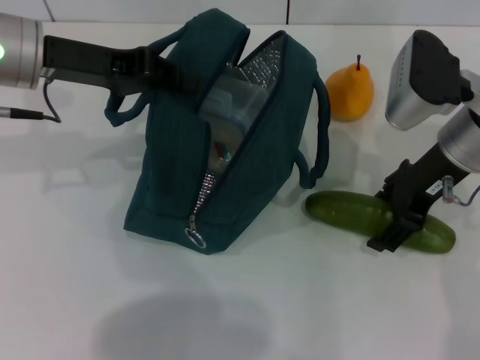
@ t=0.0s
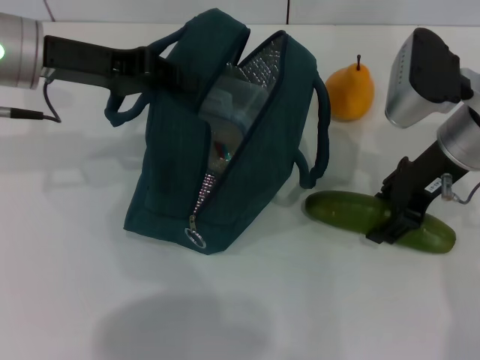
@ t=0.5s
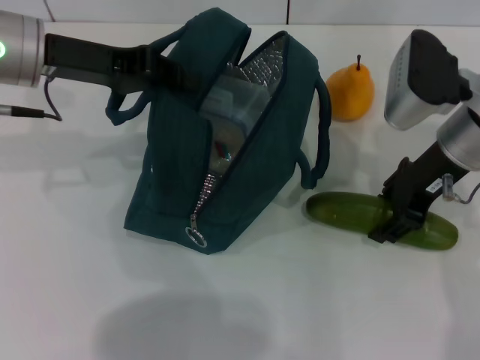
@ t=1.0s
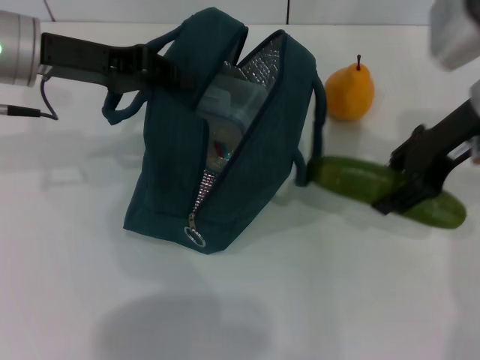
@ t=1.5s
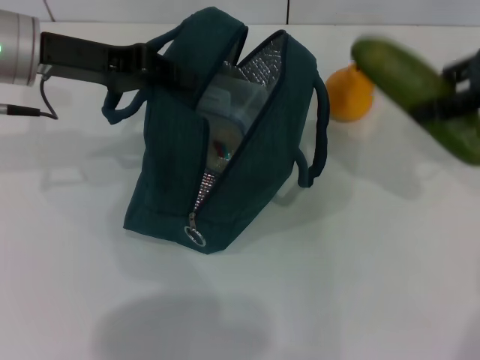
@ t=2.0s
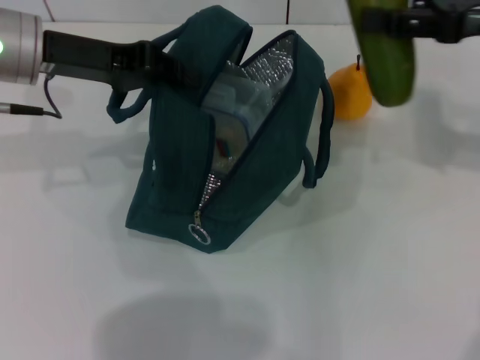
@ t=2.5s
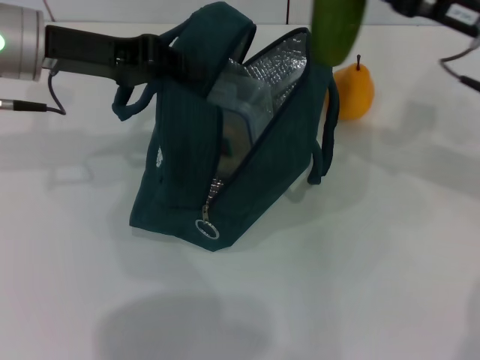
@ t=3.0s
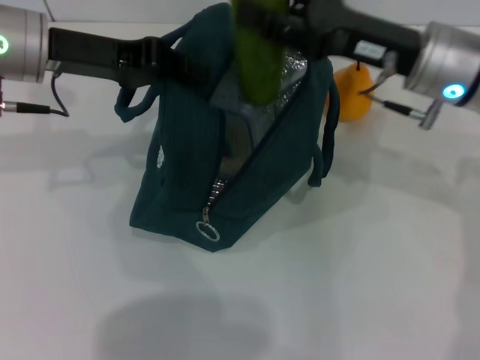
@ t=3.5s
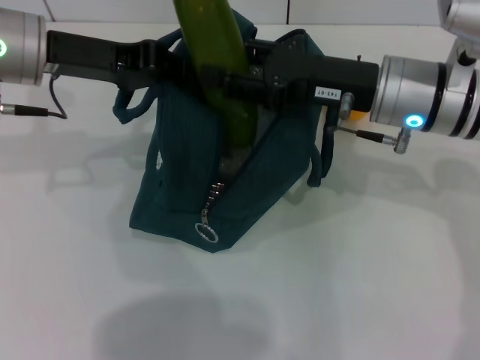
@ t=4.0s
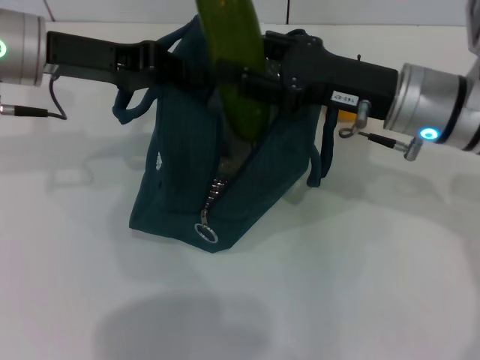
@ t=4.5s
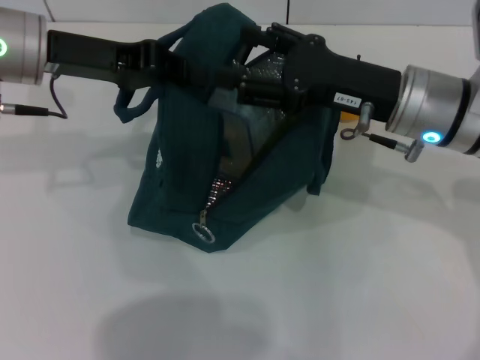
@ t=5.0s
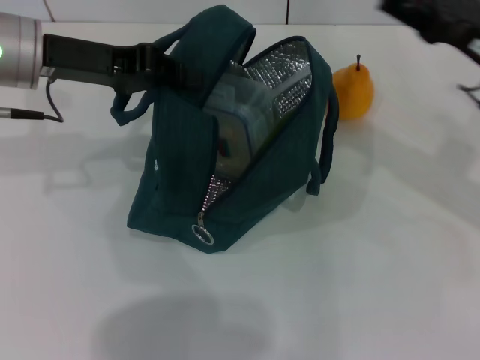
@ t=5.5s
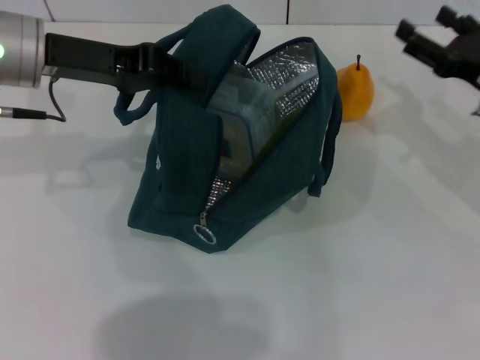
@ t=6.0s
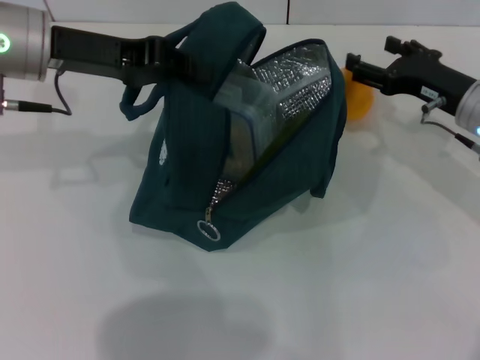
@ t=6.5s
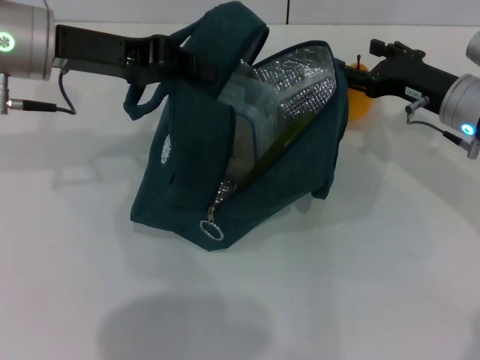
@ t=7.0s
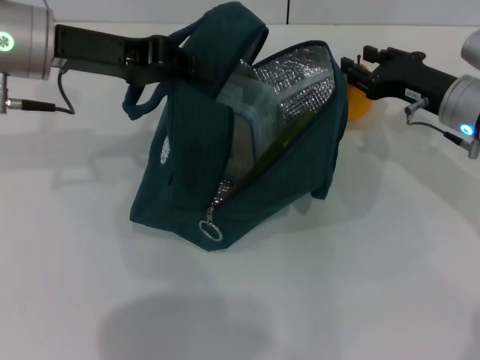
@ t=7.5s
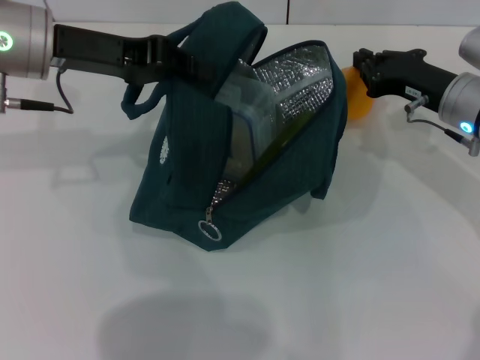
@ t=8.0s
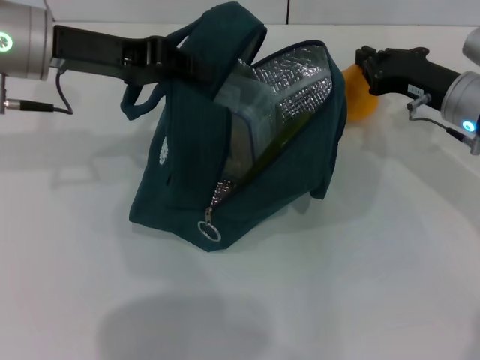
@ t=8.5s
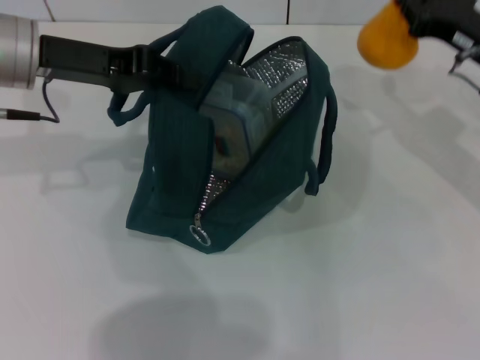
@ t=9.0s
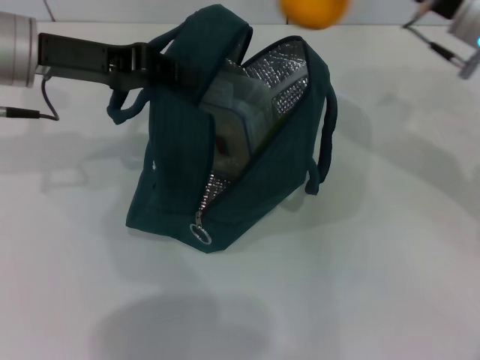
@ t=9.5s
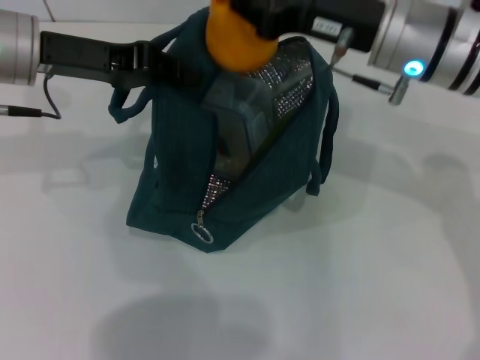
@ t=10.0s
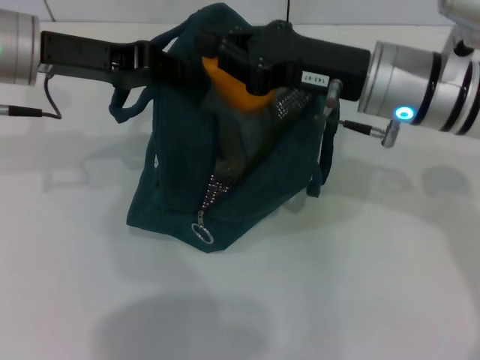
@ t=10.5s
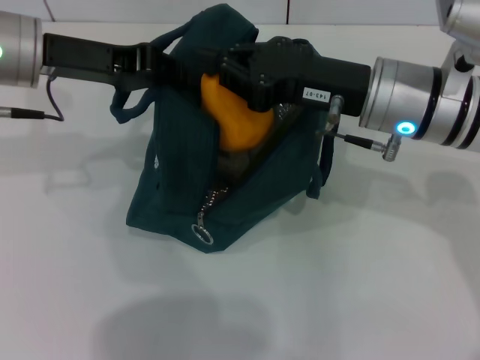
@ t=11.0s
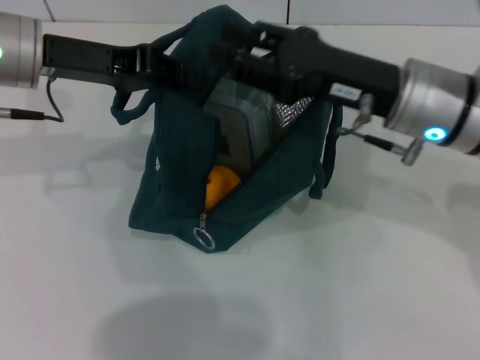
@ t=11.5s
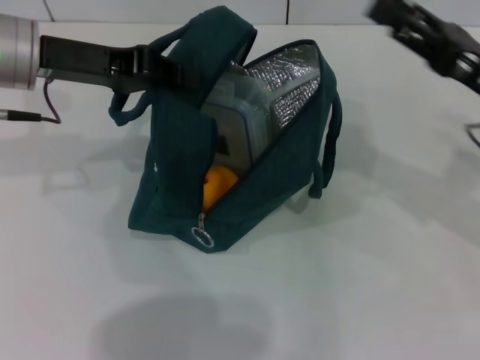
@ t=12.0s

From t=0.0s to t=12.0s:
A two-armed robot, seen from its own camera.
Step, from t=1.0s to t=5.0s: Put the cucumber into the lunch bag with your right hand.
Step, from t=6.0s to t=8.0s: Grab the pear with your right hand.
From t=0.0s to t=2.0s: The right gripper goes approximately 15 cm upward and to the right.
From t=2.0s to t=4.0s: The right gripper is displaced to the left and downward by roughly 20 cm.
From t=4.0s to t=6.0s: The right gripper travels to the right by about 15 cm, and opens its fingers.
From t=6.0s to t=8.0s: The right gripper goes some 5 cm to the left, and closes up.
From t=8.0s to t=10.0s: The right gripper travels upward and to the left by about 15 cm.
From t=10.0s to t=12.0s: The right gripper moves to the right, backward and downward, about 15 cm, and opens.

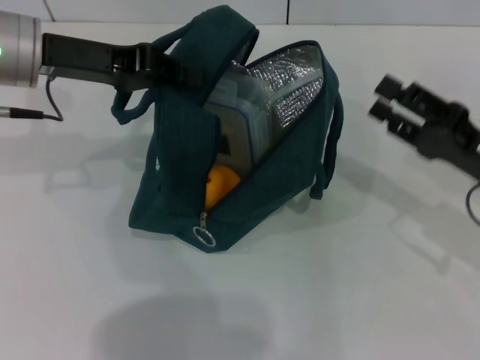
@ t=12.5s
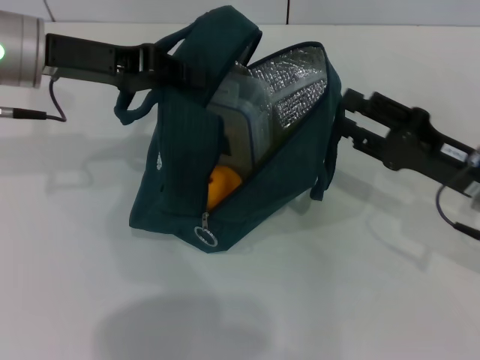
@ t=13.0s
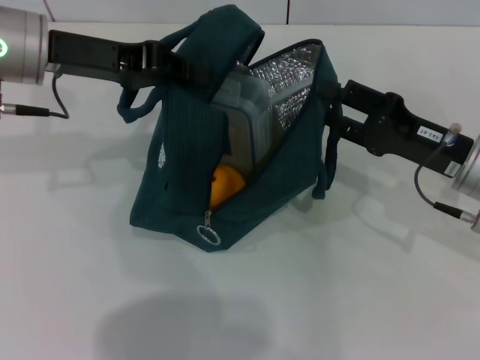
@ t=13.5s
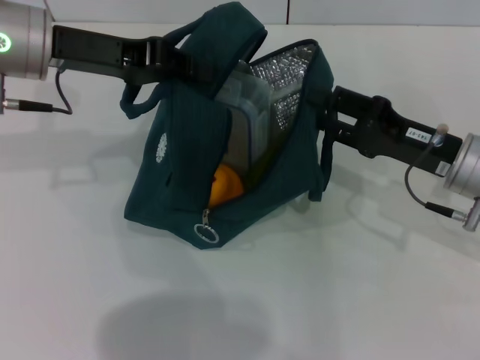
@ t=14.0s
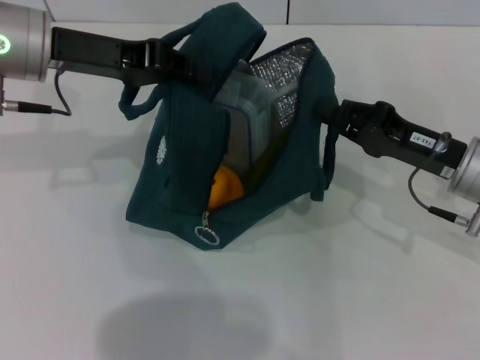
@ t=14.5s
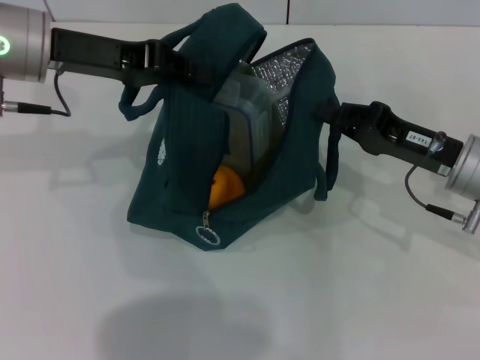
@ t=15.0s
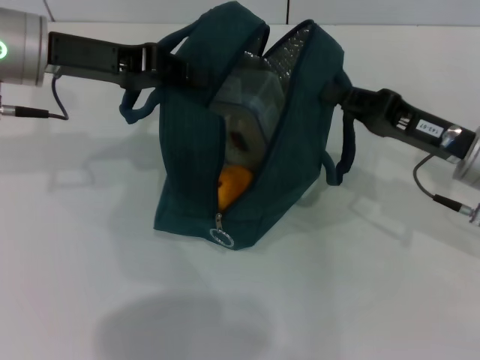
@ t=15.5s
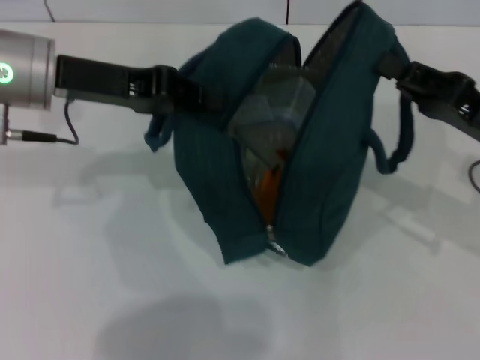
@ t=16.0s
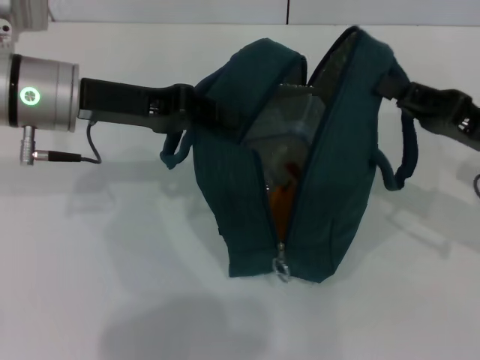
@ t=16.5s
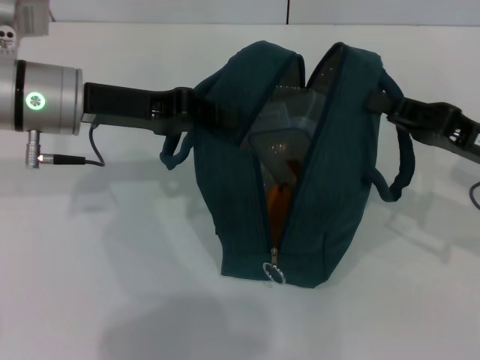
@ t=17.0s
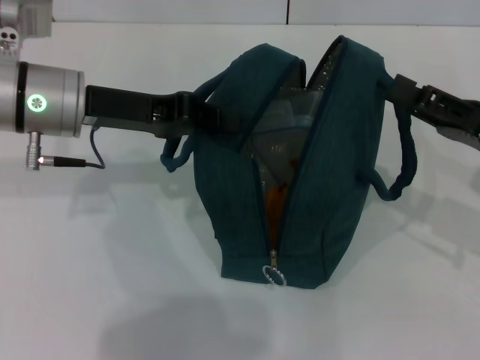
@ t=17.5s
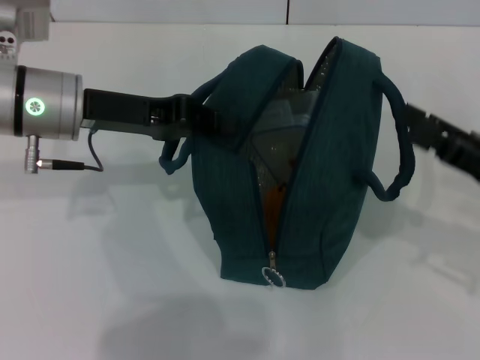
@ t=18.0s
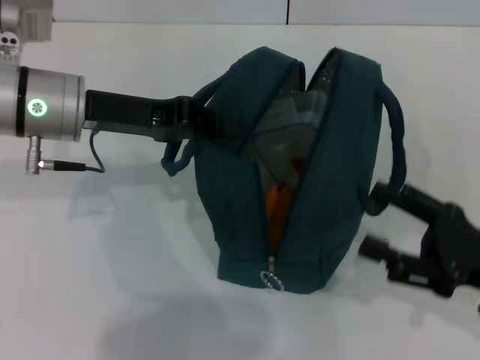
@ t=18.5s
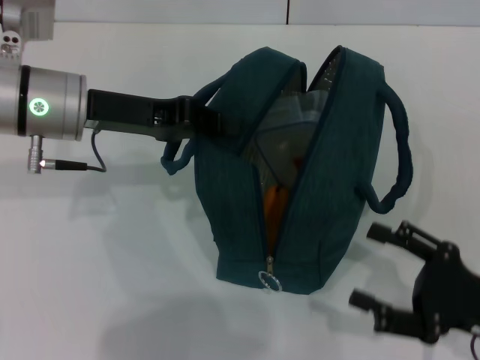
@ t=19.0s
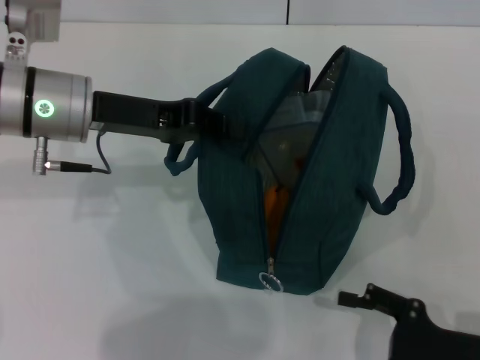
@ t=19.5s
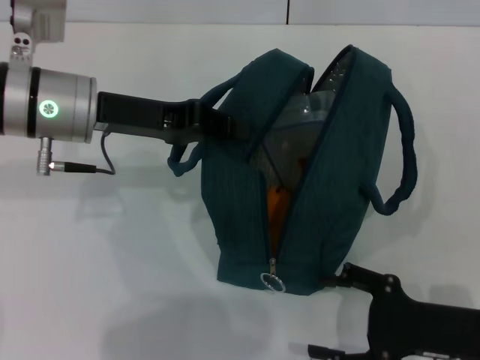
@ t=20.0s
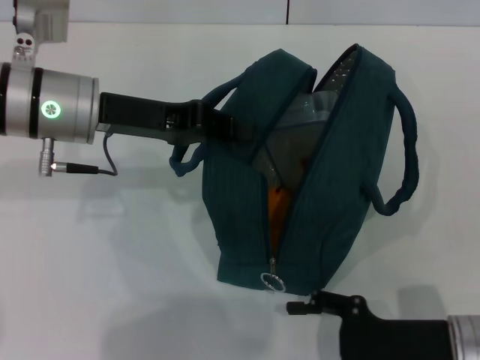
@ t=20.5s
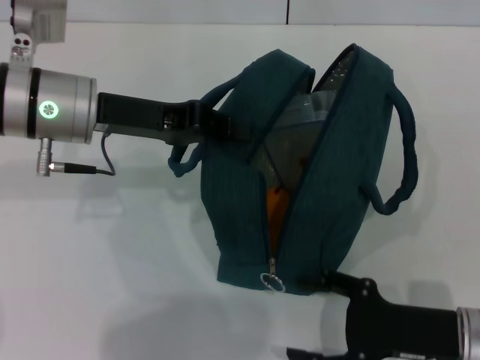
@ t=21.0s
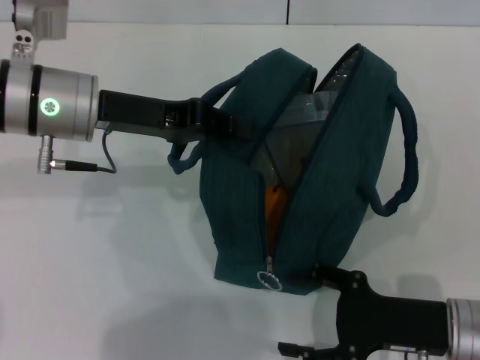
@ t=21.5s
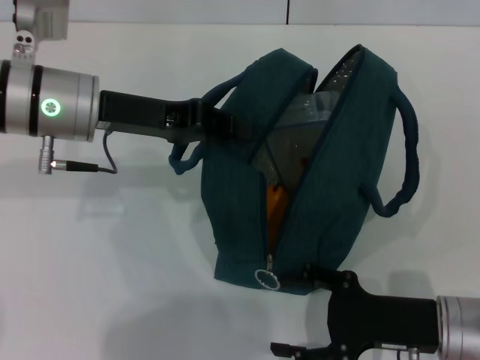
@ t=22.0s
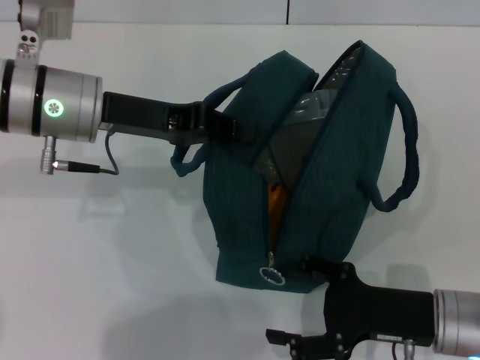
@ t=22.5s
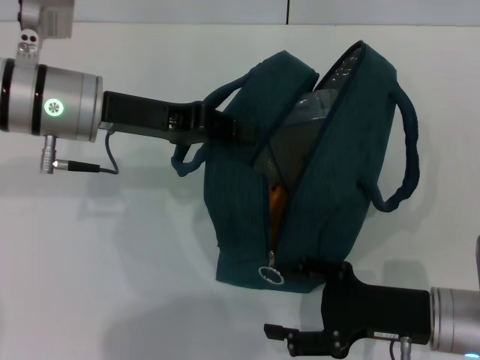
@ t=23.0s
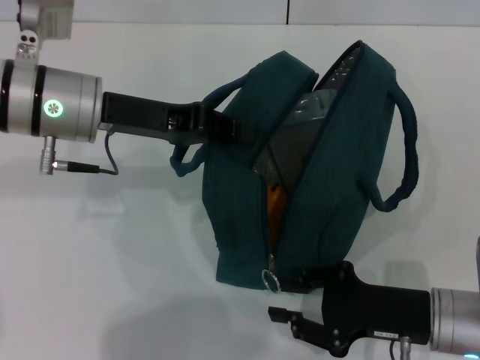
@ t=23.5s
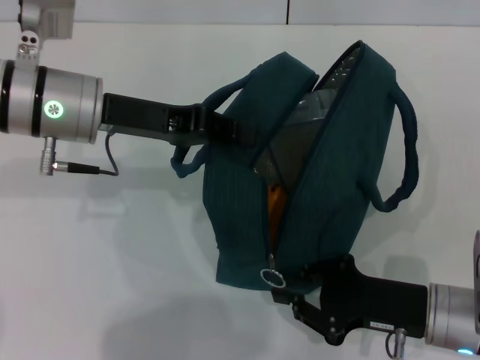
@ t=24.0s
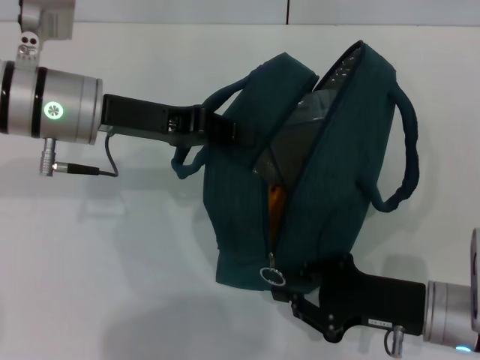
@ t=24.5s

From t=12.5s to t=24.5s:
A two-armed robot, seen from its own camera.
Step, from t=12.5s to t=18.0s: Hold the lunch bag with your right hand.
From t=12.5s to t=14.5s: The right gripper changes place by about 5 cm.
From t=14.5s to t=16.5s: The right gripper shifts by some 5 cm, and closes.
From t=16.5s to t=18.5s: The right gripper travels backward by roughly 10 cm, and opens its fingers.
From t=18.5s to t=20.5s: The right gripper shifts approximately 5 cm to the left.
From t=20.5s to t=22.5s: The grippers stay close to where they were, moving slightly.
From t=22.5s to t=24.5s: The right gripper closes up.

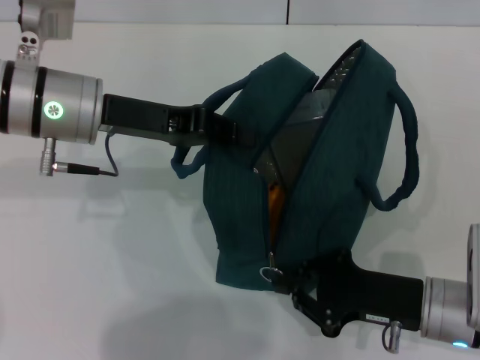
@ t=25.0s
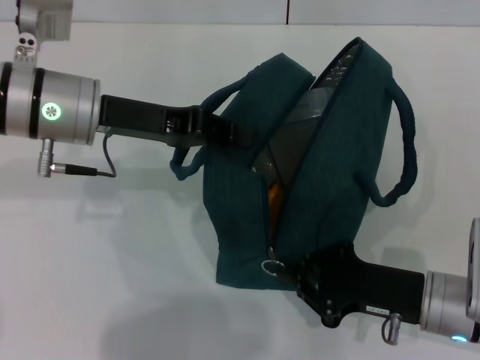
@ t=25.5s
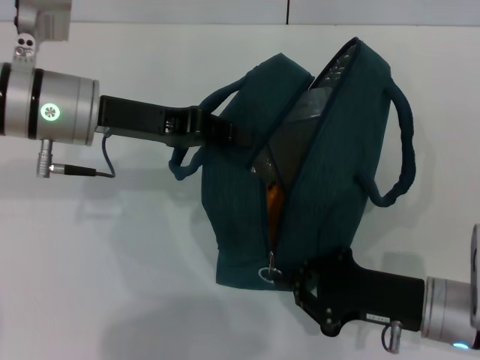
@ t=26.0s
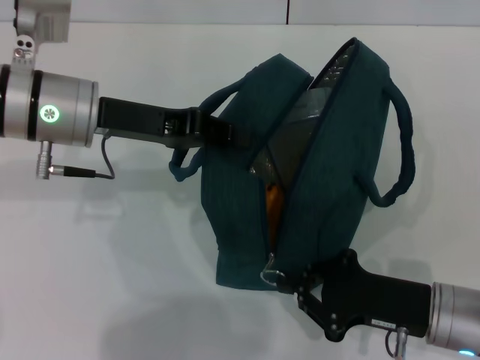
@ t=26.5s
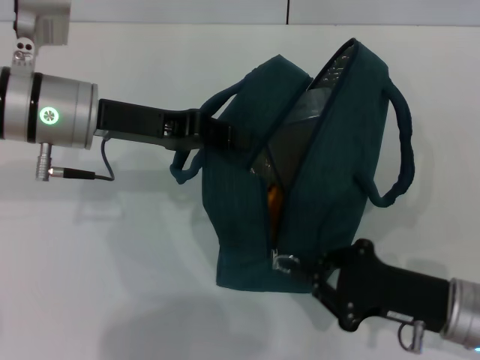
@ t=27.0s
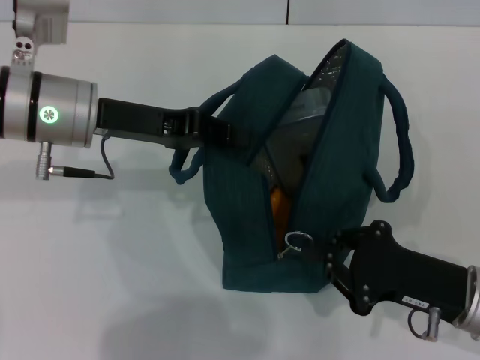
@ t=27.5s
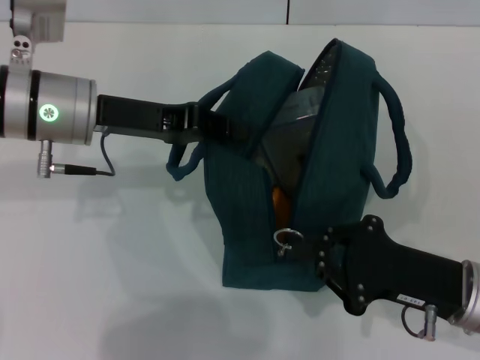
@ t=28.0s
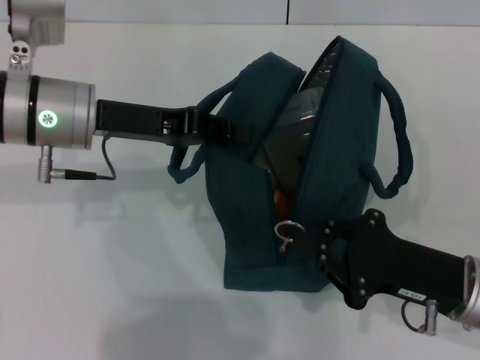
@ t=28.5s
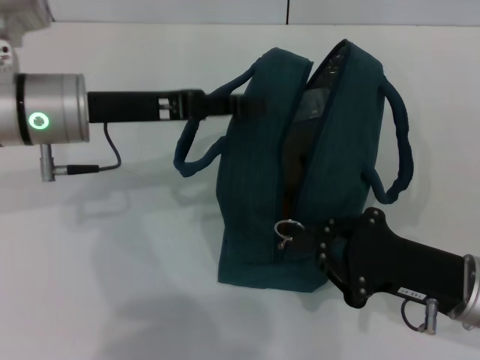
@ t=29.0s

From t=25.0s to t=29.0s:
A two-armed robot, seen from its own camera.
From t=25.0s to t=27.0s: The grippers stay close to where they were, moving slightly.
From t=27.0s to t=29.0s: The left gripper opens up.
